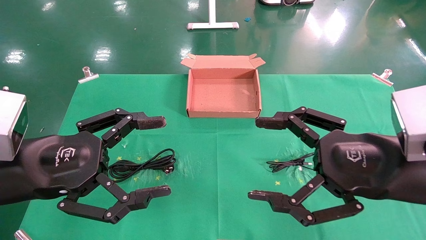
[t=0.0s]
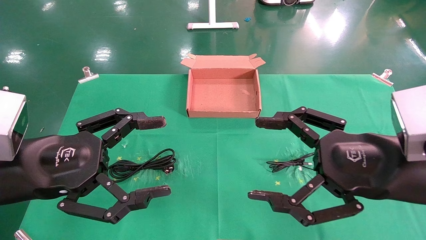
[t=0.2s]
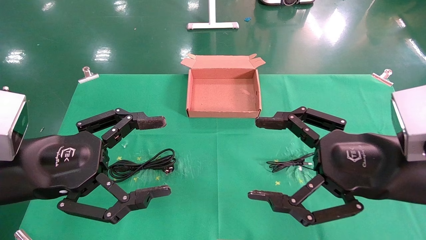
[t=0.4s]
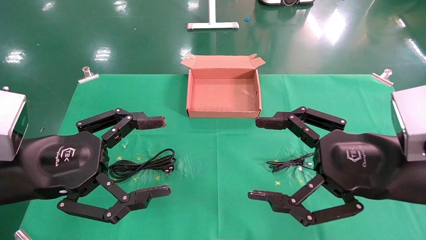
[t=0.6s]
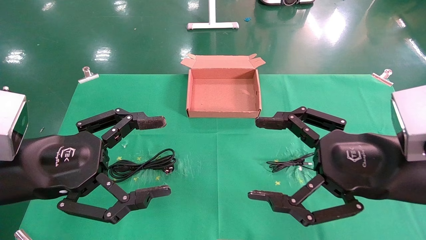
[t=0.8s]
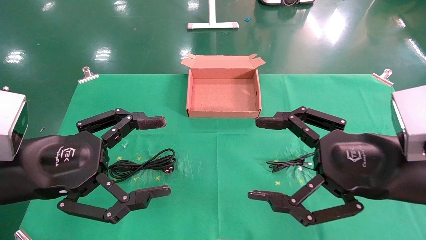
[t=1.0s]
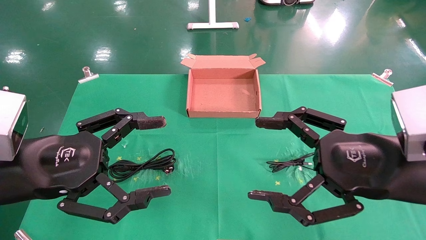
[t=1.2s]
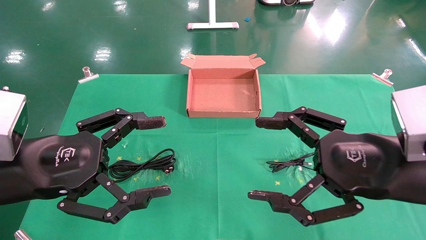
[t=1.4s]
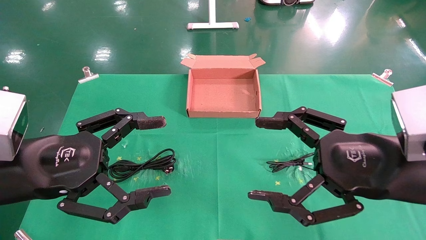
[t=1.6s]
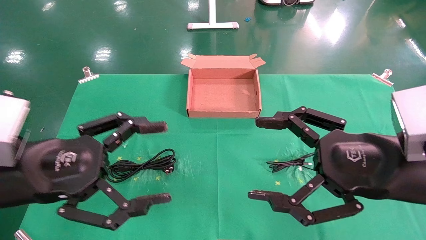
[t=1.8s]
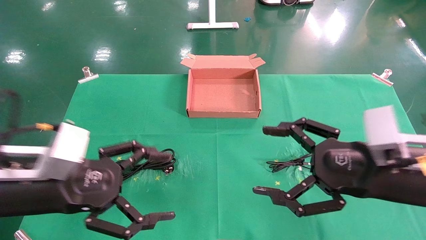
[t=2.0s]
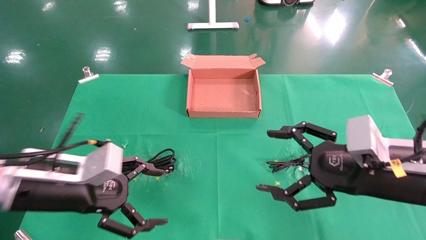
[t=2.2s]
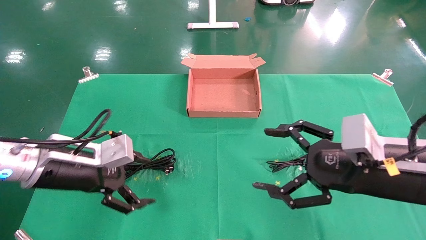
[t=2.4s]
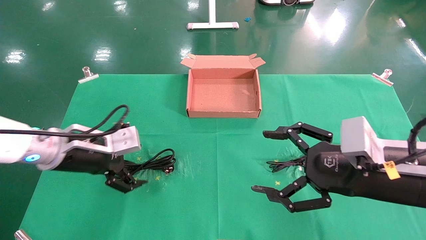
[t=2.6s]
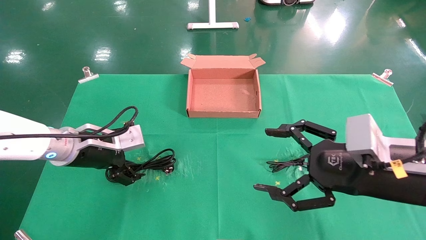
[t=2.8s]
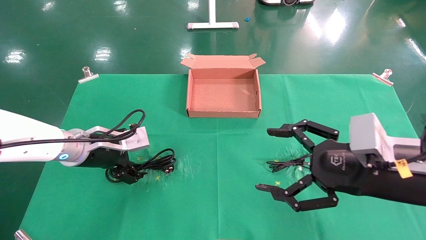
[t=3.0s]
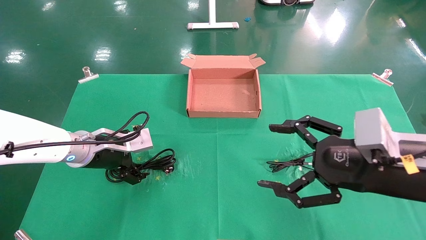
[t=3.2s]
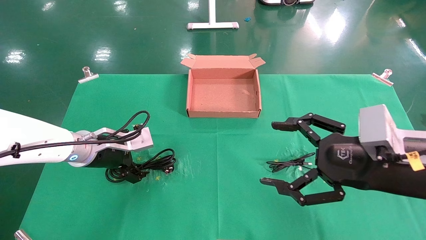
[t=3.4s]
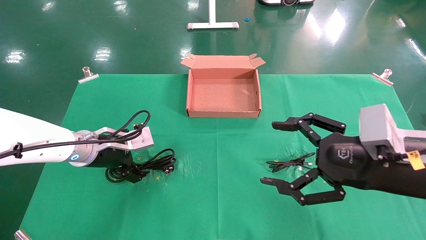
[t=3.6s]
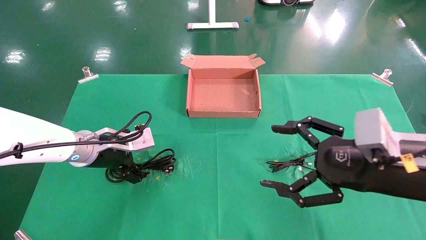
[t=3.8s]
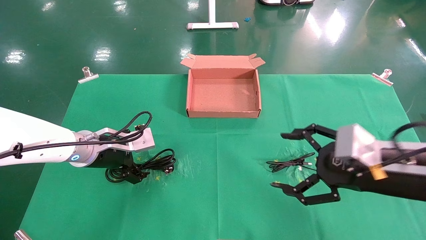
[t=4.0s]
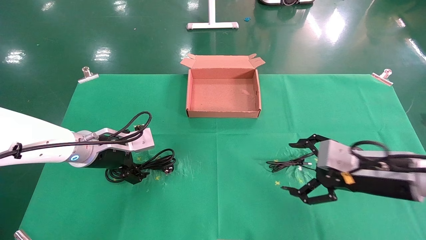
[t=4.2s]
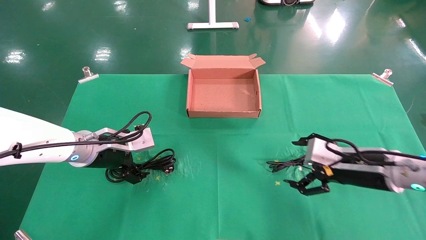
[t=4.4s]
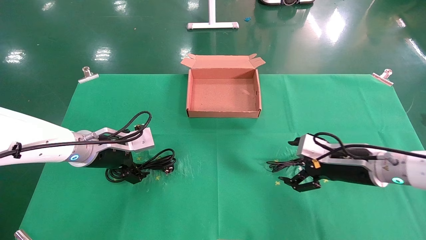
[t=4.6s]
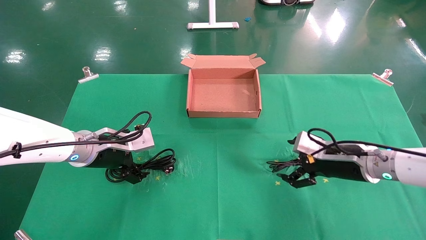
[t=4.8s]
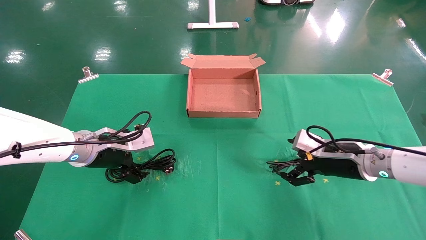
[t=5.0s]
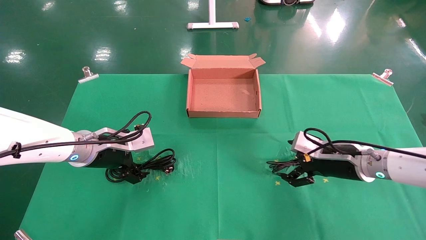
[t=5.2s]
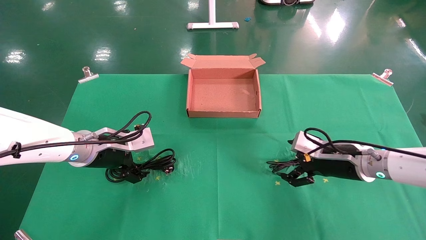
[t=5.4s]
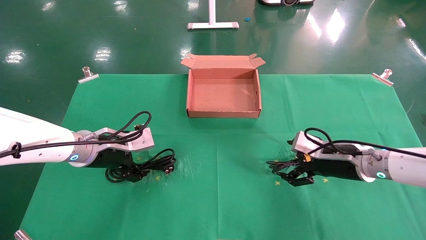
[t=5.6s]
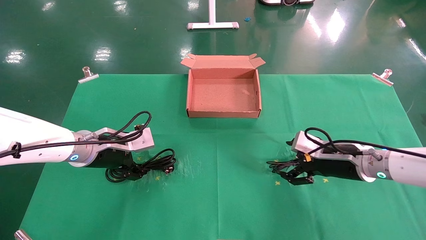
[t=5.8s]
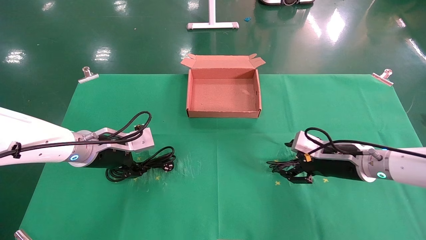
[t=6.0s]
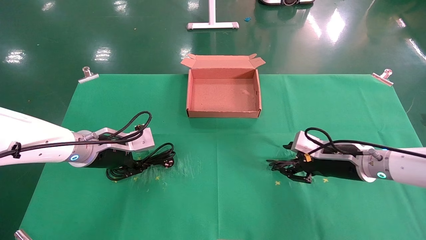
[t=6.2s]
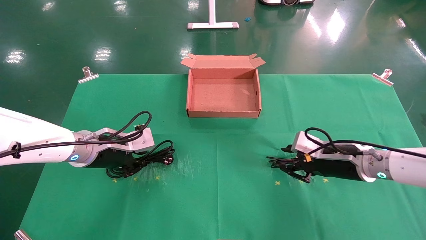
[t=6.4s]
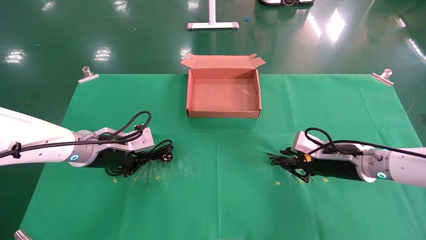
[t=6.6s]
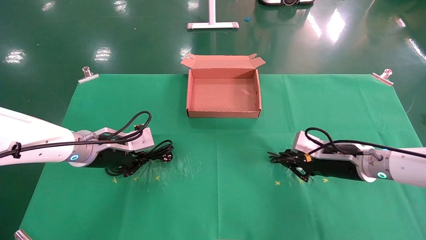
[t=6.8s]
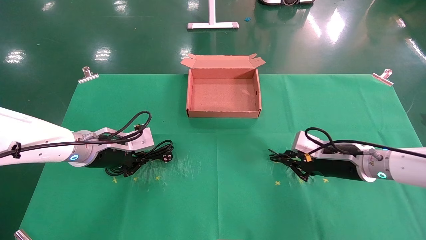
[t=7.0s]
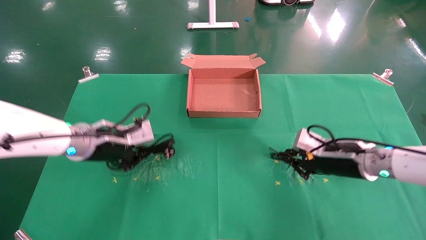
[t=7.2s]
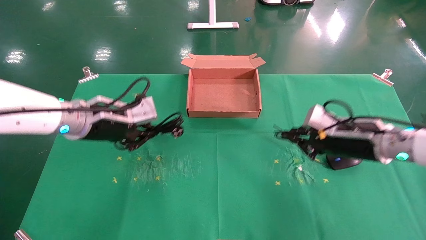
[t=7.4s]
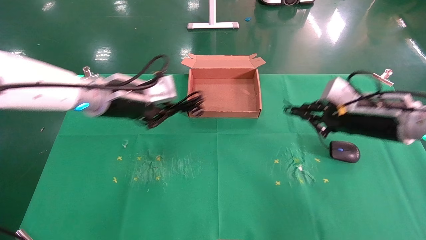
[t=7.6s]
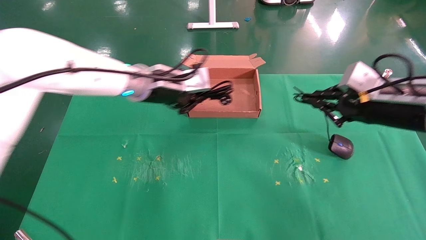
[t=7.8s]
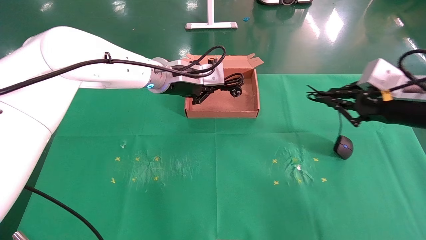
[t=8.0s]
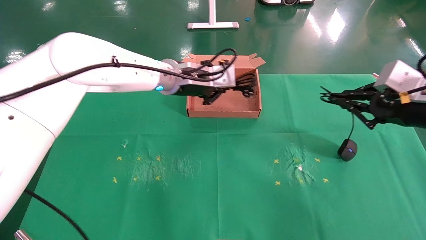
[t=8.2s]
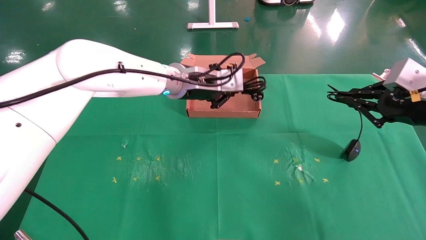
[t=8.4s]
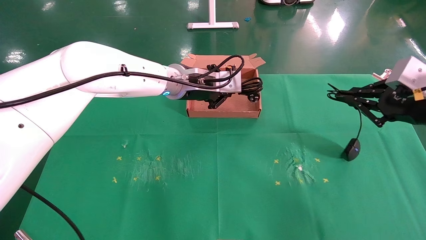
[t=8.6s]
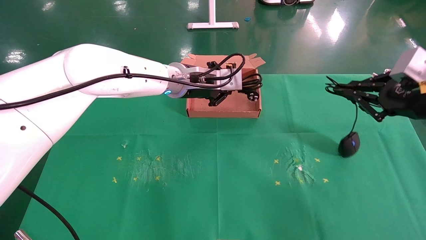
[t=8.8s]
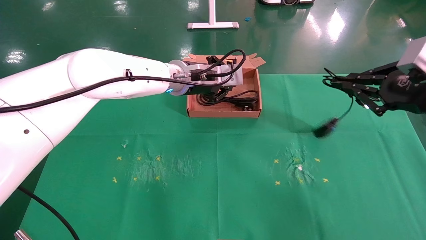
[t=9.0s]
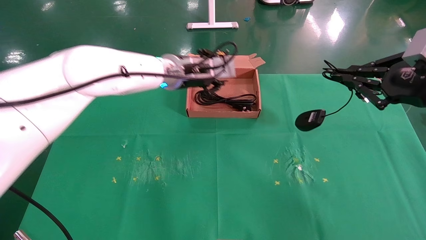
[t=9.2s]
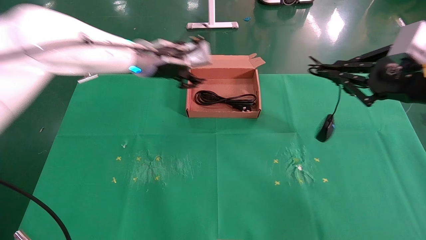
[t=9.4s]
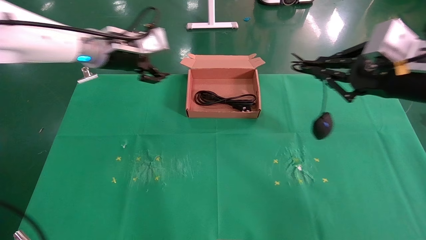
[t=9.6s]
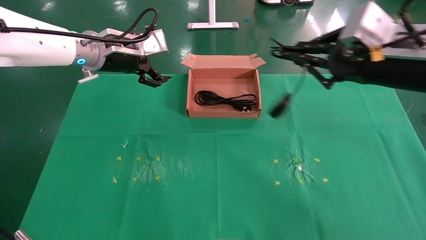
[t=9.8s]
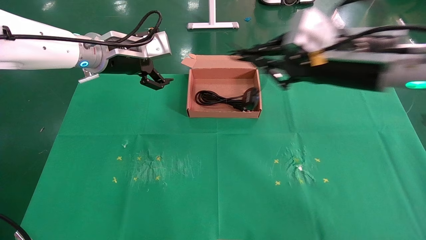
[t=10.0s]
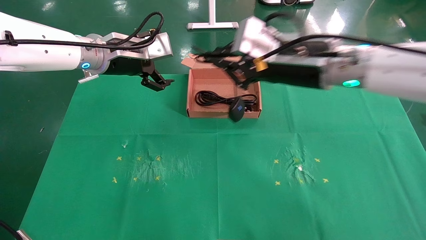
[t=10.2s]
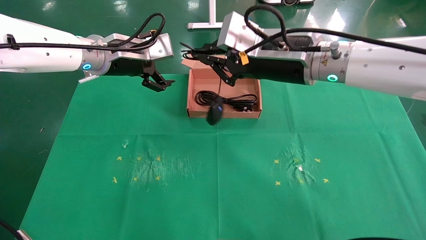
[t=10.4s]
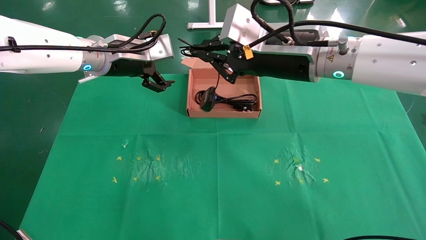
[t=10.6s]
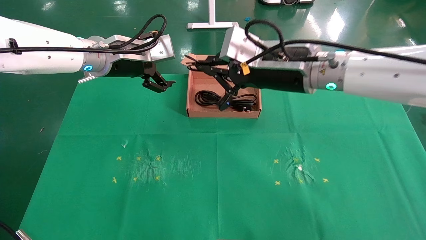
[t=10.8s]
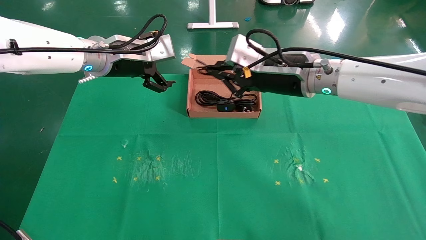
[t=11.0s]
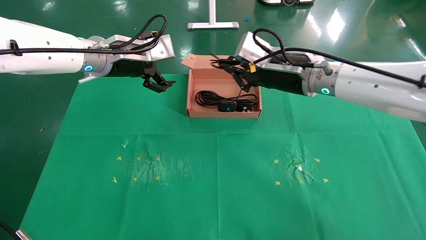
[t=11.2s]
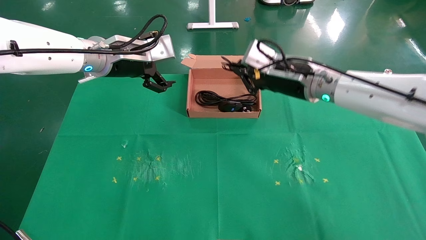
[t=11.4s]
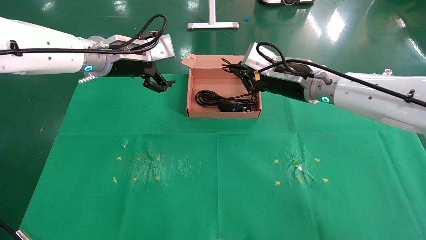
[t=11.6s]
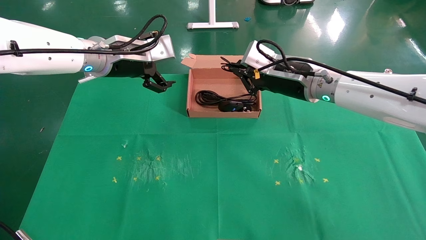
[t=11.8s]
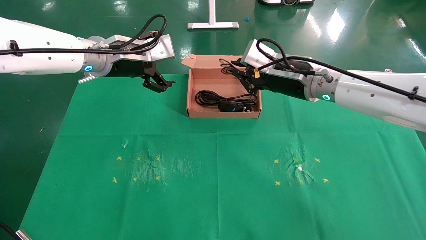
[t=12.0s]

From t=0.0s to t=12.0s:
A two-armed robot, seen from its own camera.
Task of the whole recording: grasp data cable left put into box grasp mouse right put into box.
Step, from t=2.0s to t=7.0s: Simultaneously pick up the mouse and power cord from the accessory packaging area.
From t=0.0s to t=1.6s: The two grippers keep their place.
From t=1.6s to t=3.0s: The left gripper goes about 15 cm forward.
From t=3.0s to t=4.4s: The right gripper shifts approximately 10 cm forward and downward.
From t=4.4s to t=6.0s: The right gripper shifts by approximately 5 cm.
From t=6.0s to t=7.6s: The right gripper heads upward, covering approximately 10 cm, and closes up. Meanwhile the left gripper heads upward and to the right, covering about 10 cm, and closes up.
From t=7.6s to t=9.0s: The right gripper heads upward, backward and to the right, covering approximately 10 cm. The left gripper travels to the right and forward by some 15 cm.
From t=9.0s to t=10.4s: The right gripper travels to the left by about 25 cm. The left gripper heads to the left, covering roughly 15 cm, and opens.
From t=10.4s to t=12.0s: The right gripper moves forward, about 5 cm.

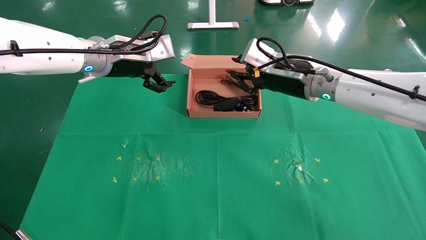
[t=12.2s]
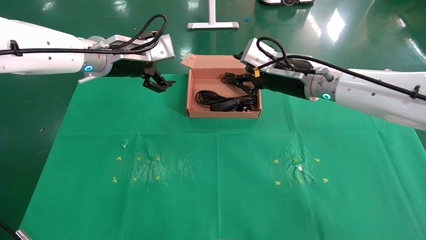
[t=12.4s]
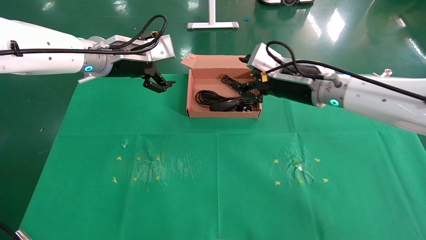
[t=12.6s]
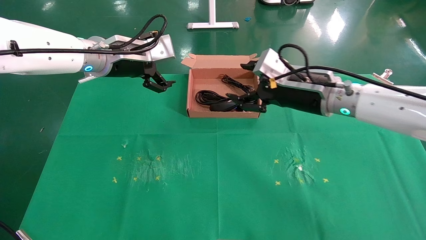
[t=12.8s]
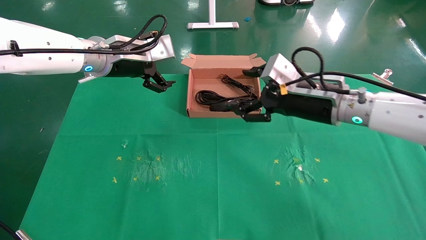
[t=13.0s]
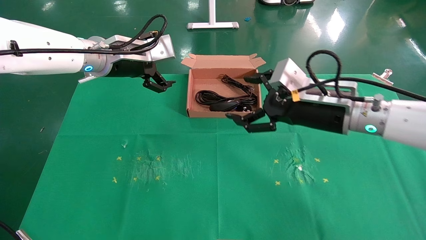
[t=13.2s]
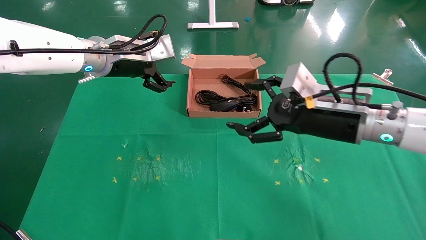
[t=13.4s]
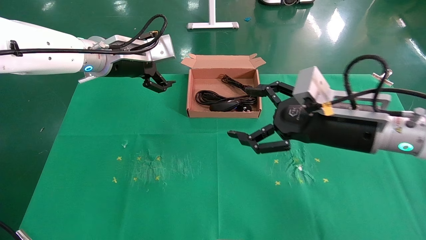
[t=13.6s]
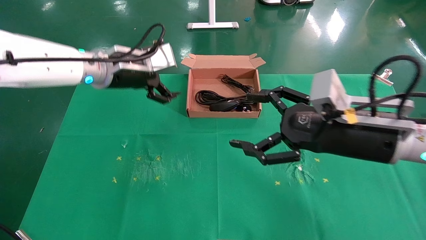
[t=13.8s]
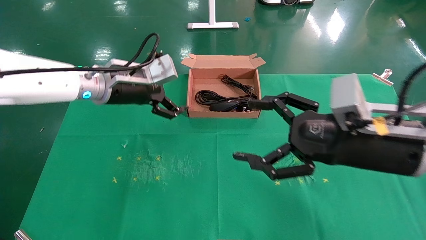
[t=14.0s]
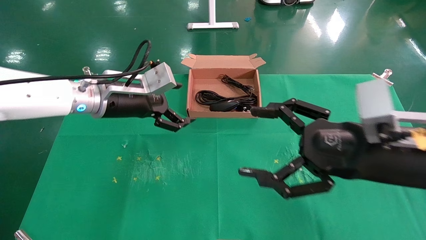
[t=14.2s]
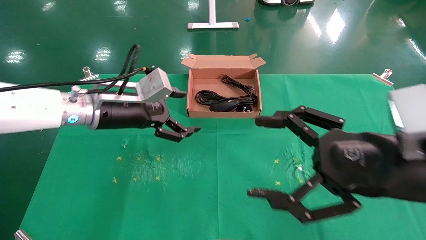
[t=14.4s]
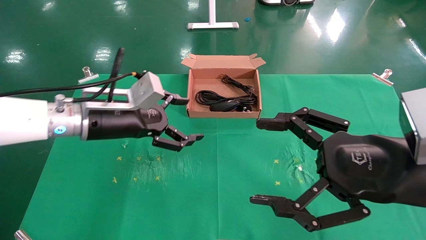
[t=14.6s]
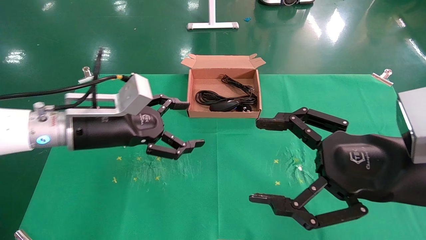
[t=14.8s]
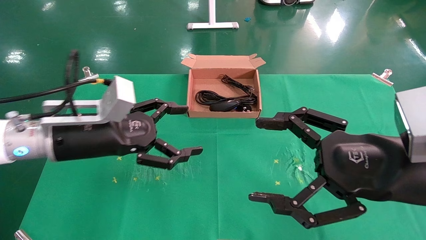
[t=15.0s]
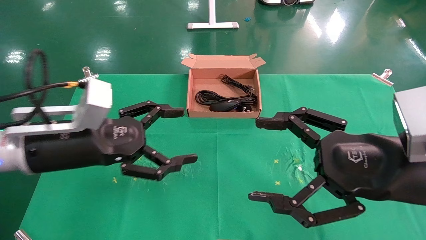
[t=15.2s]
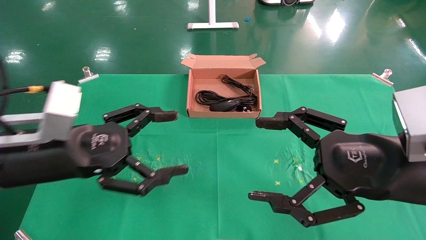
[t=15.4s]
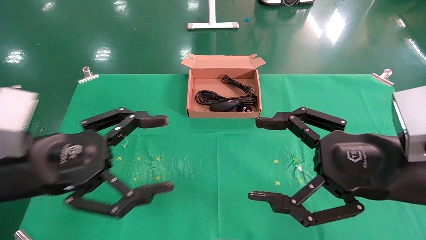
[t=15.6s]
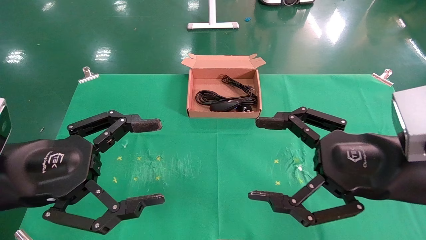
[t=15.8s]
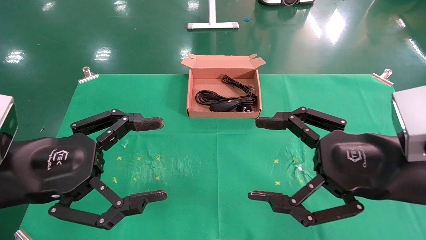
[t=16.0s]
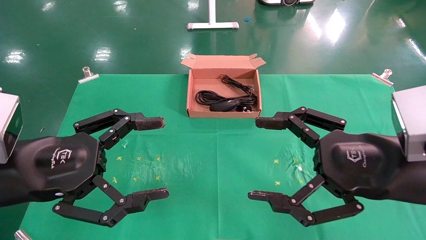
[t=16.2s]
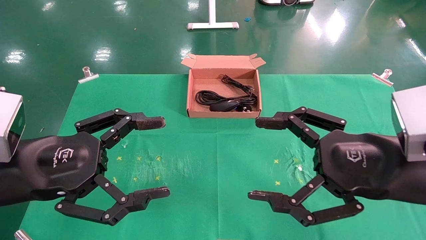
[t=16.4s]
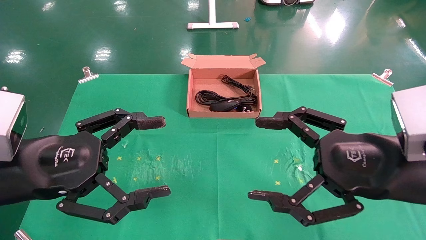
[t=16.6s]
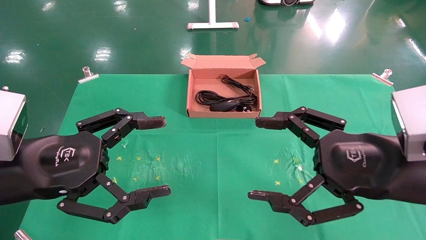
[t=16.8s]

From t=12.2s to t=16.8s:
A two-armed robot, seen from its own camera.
Task of the whole recording: grasp data cable left put into box grasp mouse right put into box.
From t=12.2s to t=13.8s: The right gripper moves backward and to the right, about 15 cm, and opens up.
From t=13.8s to t=15.2s: The left gripper is displaced backward and downward by roughly 15 cm, while the right gripper moves backward, approximately 10 cm.
From t=15.2s to t=16.8s: The left gripper goes roughly 5 cm backward.
